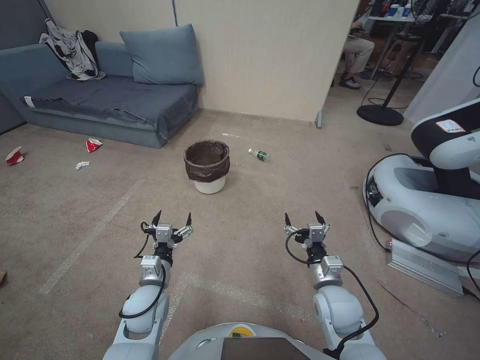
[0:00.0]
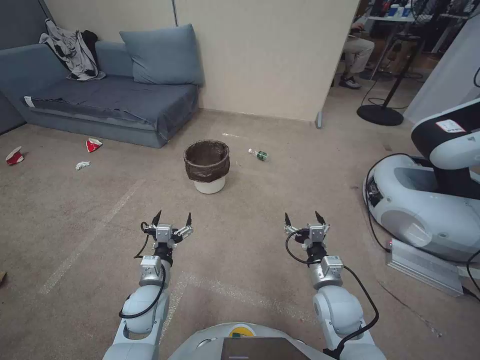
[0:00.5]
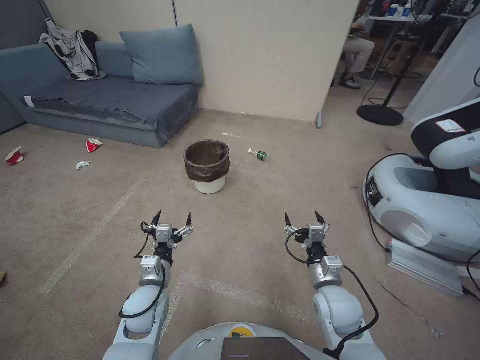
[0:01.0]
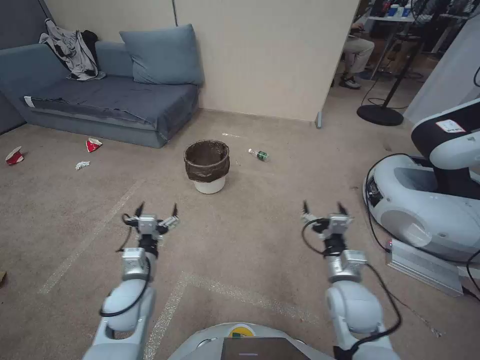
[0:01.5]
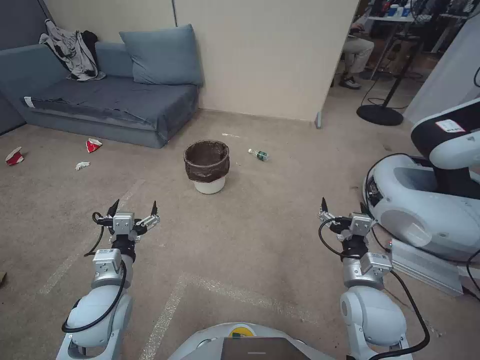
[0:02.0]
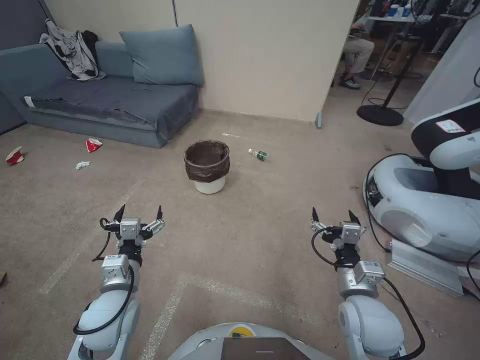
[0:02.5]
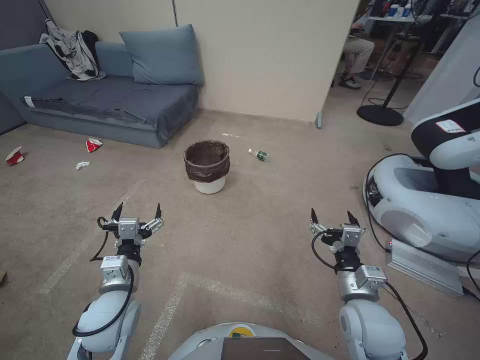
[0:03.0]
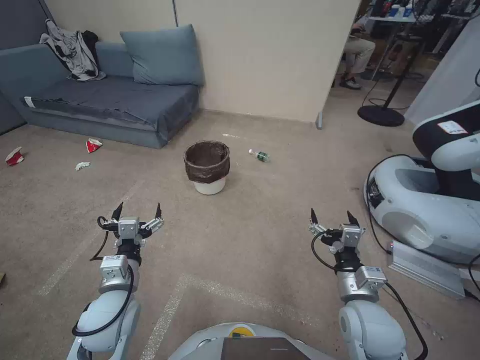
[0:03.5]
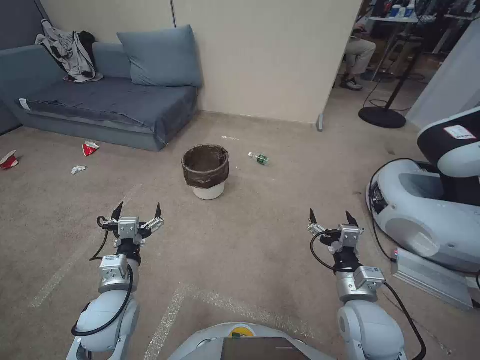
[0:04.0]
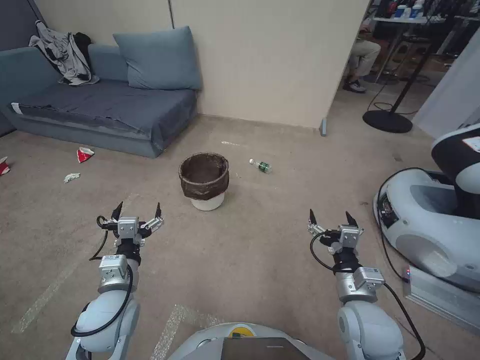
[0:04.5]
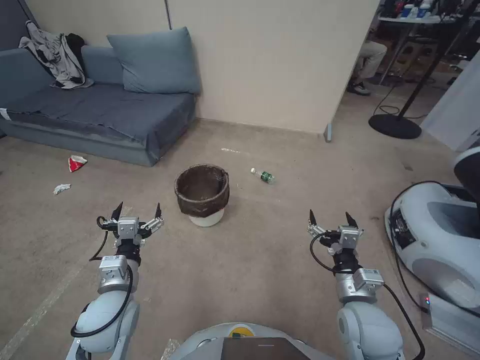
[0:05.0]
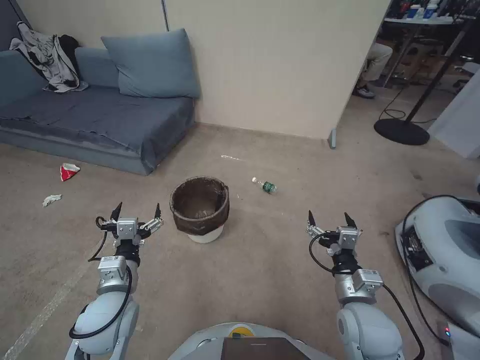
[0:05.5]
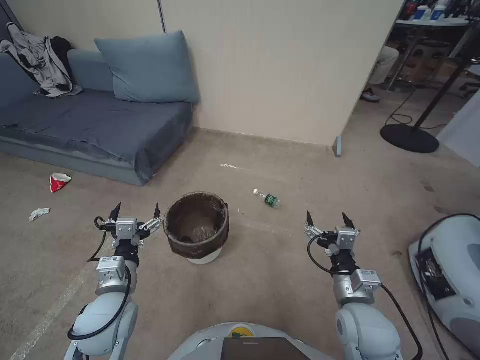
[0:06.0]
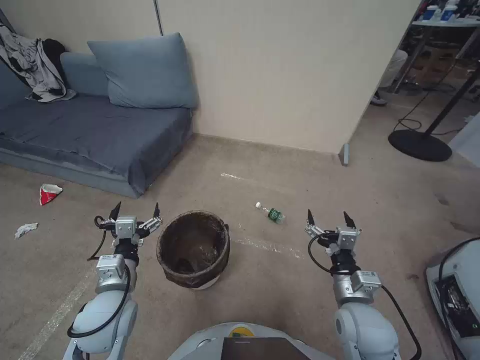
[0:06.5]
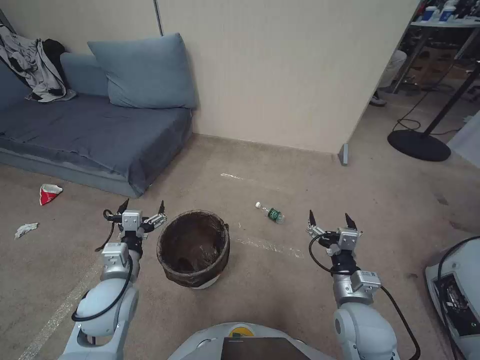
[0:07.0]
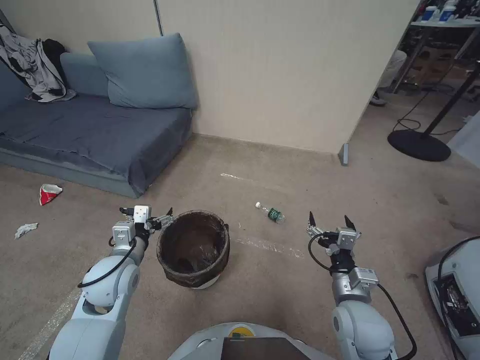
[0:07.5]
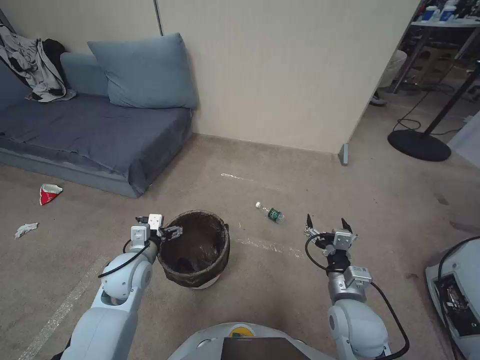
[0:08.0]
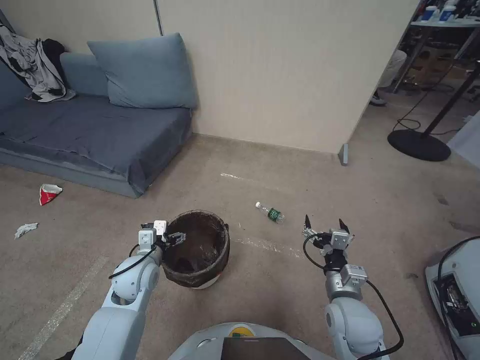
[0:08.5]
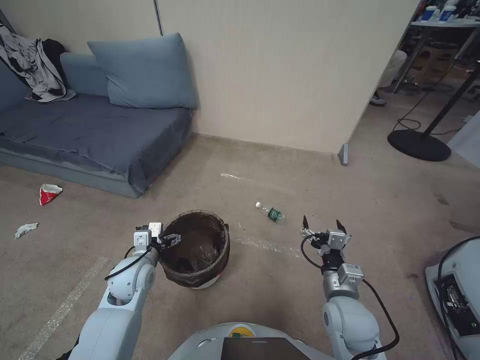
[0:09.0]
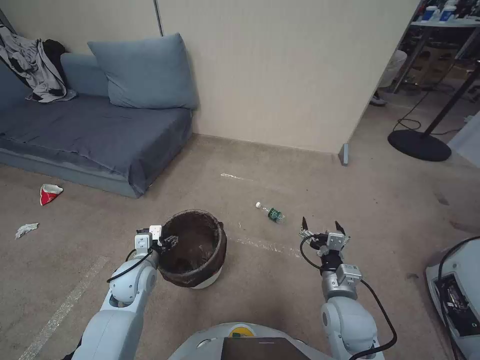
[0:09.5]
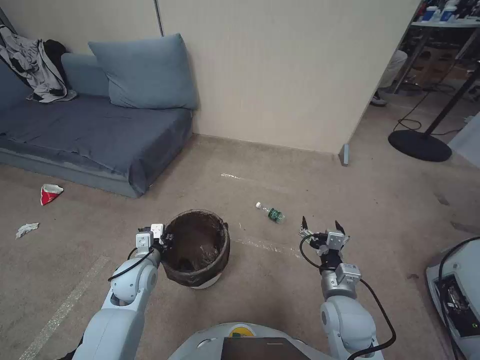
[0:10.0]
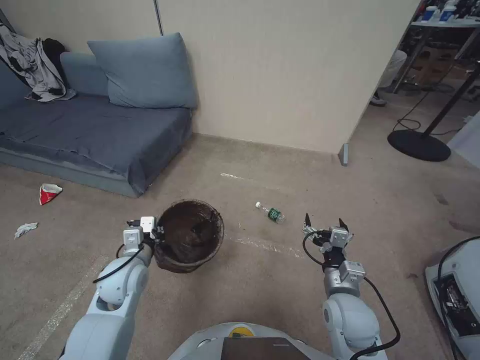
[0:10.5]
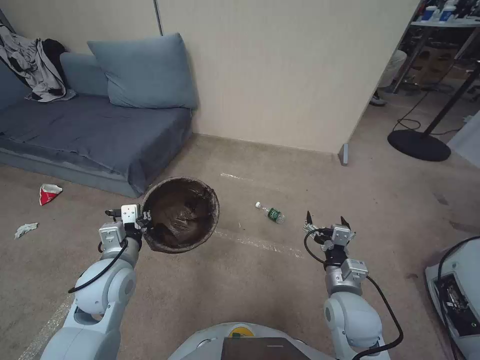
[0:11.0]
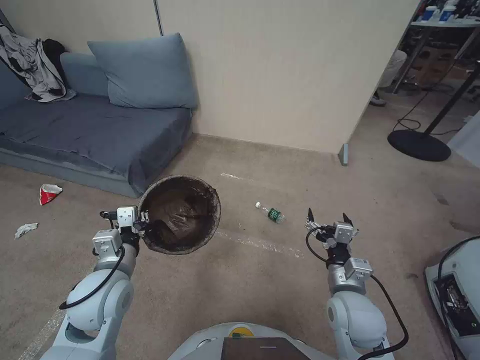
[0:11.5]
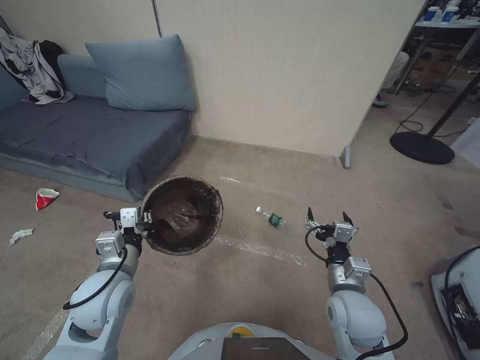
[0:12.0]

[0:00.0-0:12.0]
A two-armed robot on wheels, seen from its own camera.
Task of the whole recording: Pick up the trash bin, then pick up the garbage from the floor and place it into the trash bin.
0:02.0 to 0:04.0: The grippers make only small movements.
0:06.0 to 0:08.0: The left gripper is displaced forward by about 10 cm.
0:08.0 to 0:10.0: The left gripper closes.
0:10.0 to 0:12.0: The left gripper goes some 10 cm upward and backward.

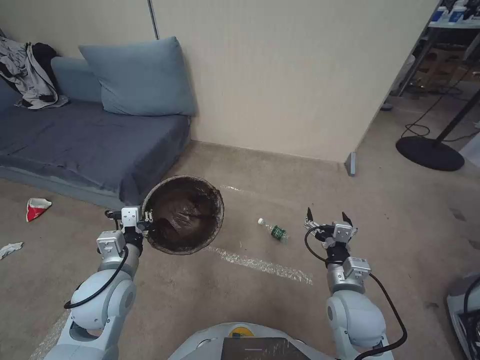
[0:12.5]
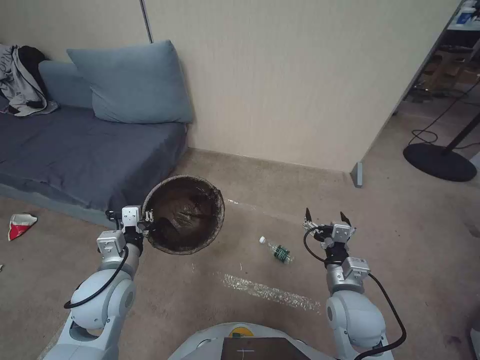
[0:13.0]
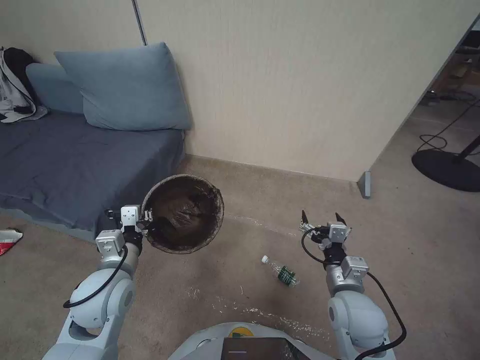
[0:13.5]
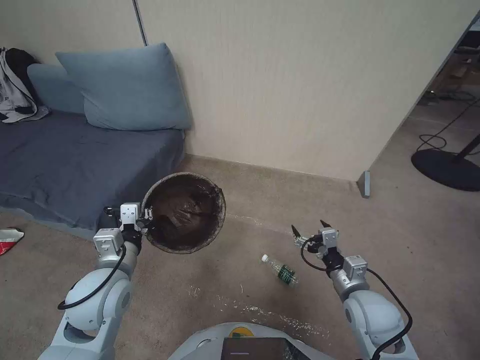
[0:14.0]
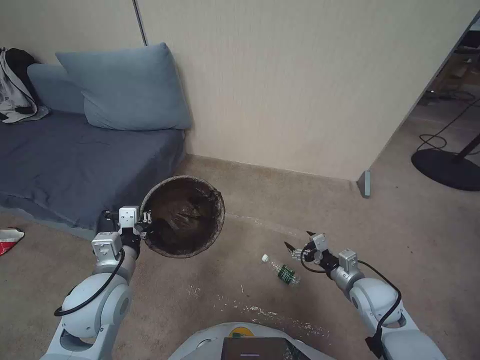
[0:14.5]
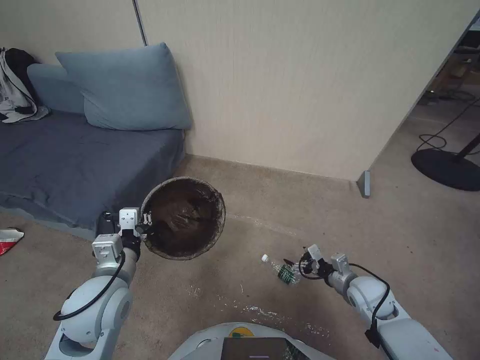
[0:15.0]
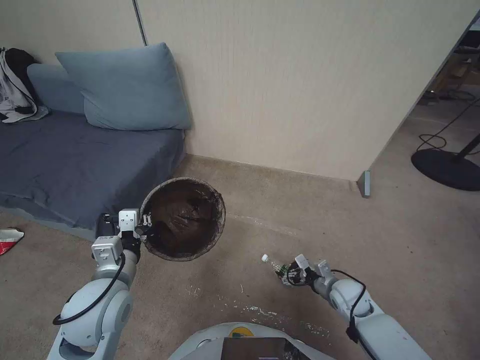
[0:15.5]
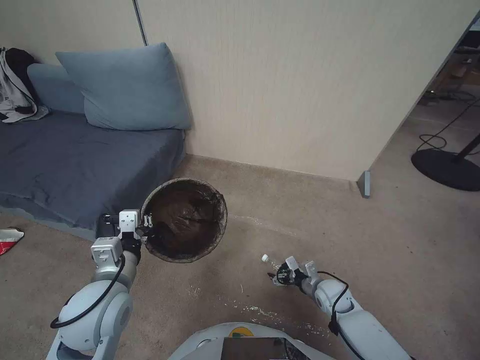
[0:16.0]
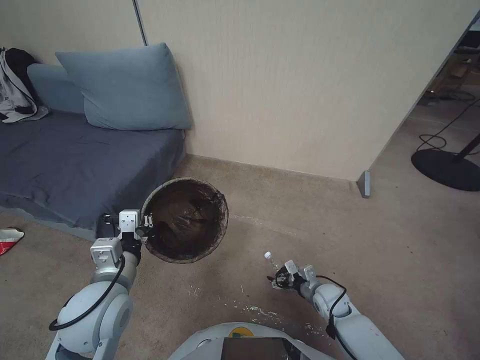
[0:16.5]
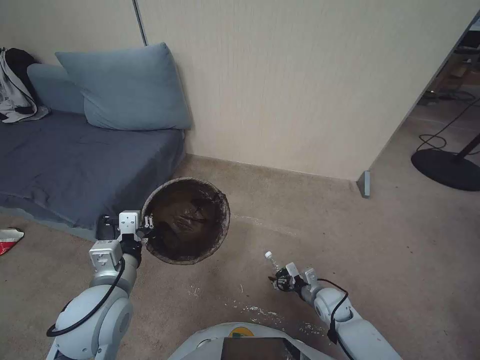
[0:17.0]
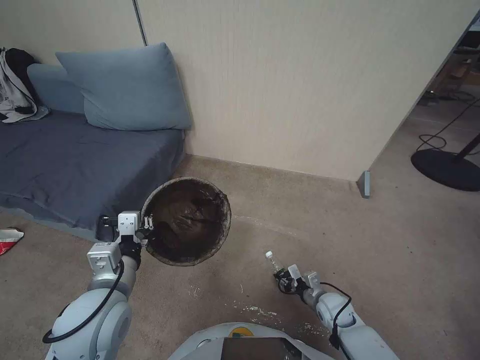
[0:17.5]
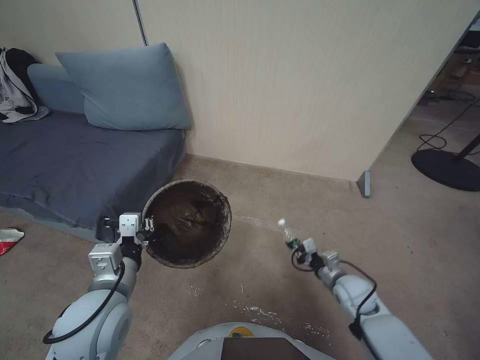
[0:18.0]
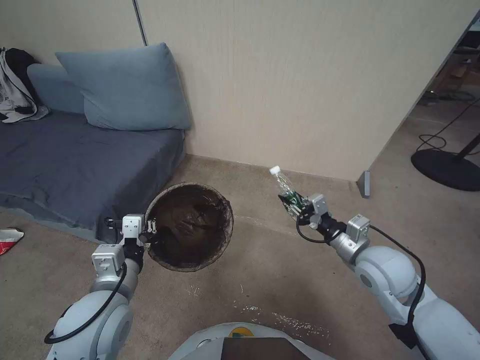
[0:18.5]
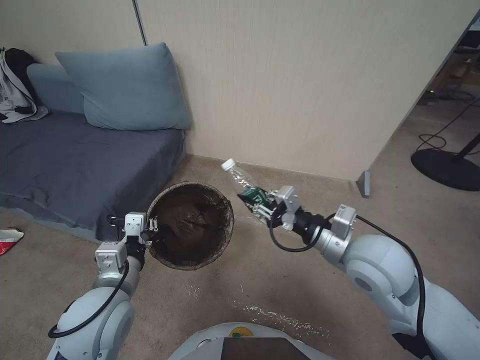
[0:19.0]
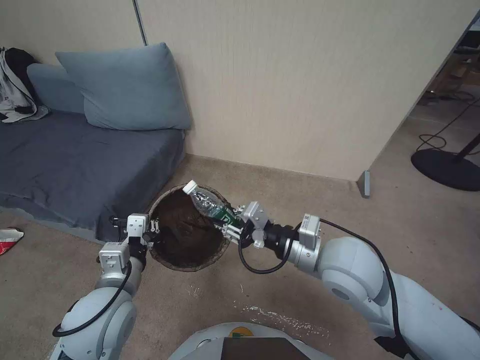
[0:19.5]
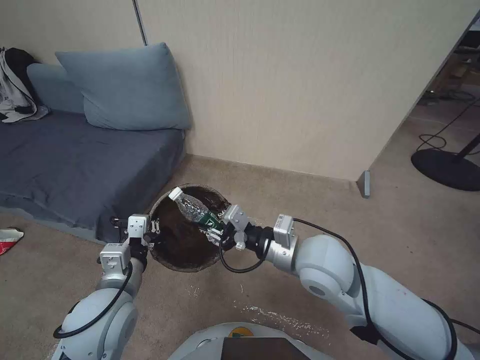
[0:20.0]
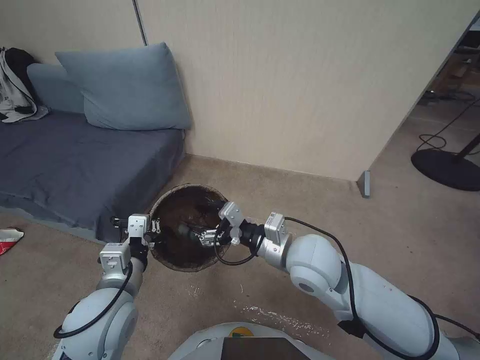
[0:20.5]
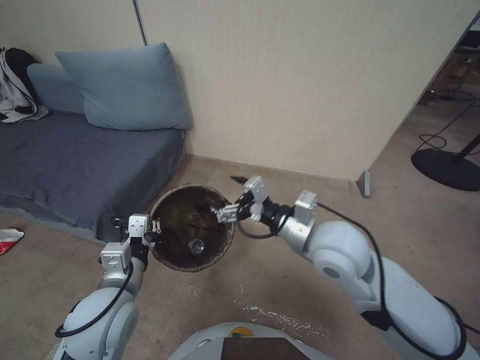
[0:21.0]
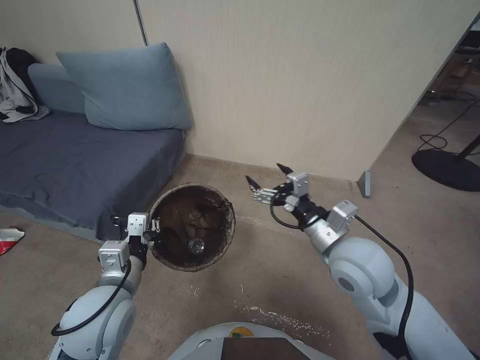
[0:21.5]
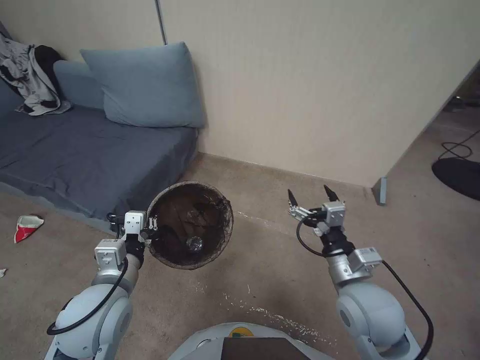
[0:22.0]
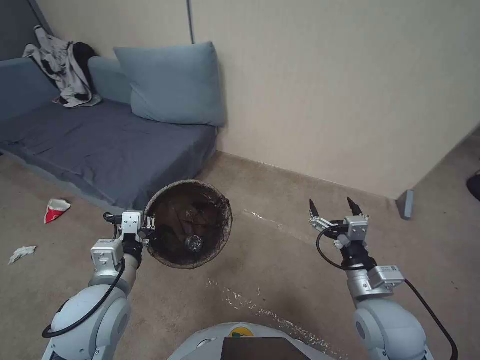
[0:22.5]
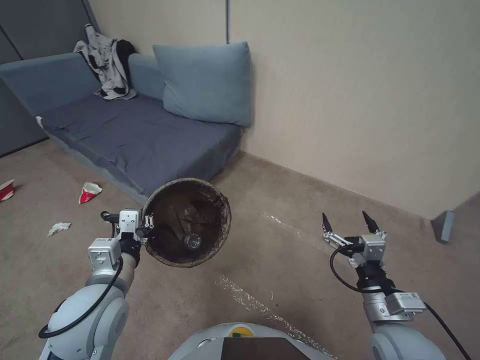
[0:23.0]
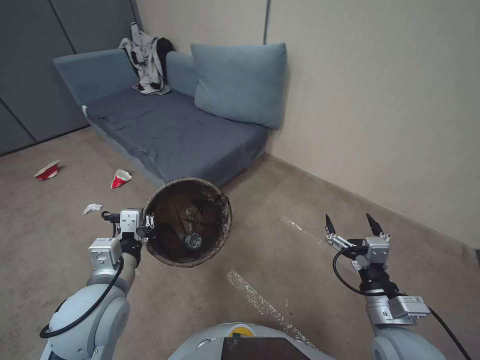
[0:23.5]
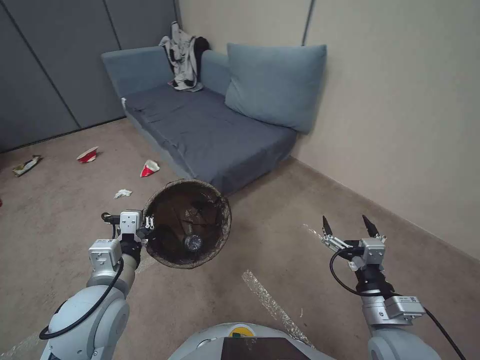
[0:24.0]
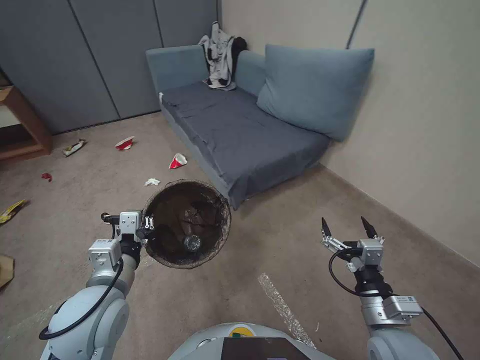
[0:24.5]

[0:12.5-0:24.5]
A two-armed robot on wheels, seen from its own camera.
Task of the whole recording: Pick up the trash bin, then pick up the garbage from the floor and place it into the trash bin.
0:12.5 to 0:14.5: The right gripper travels to the right by roughly 10 cm.
0:14.5 to 0:16.5: The right gripper is displaced downward by approximately 15 cm.
0:16.5 to 0:18.5: The right gripper travels upward by about 25 cm, and closes up.
0:18.5 to 0:20.5: The right gripper is displaced to the left and upward by some 20 cm, and opens its fingers.
0:20.5 to 0:22.5: The right gripper heads to the right, backward and downward, covering approximately 20 cm.
0:22.5 to 0:24.5: The right gripper changes place by about 5 cm.

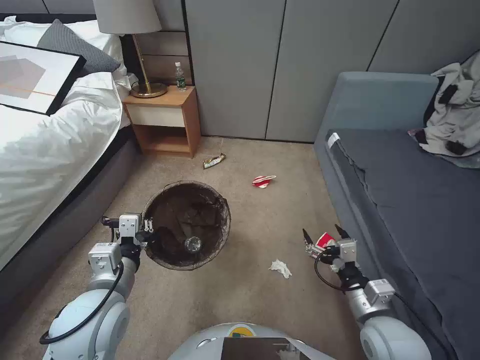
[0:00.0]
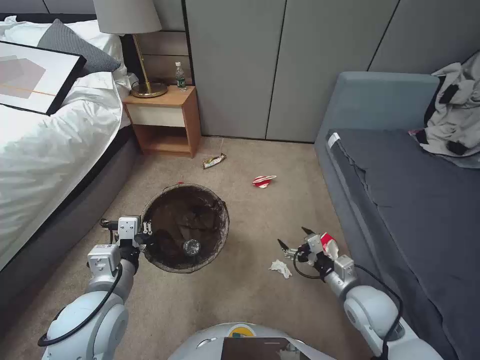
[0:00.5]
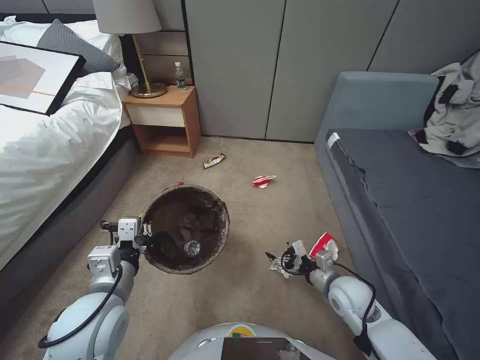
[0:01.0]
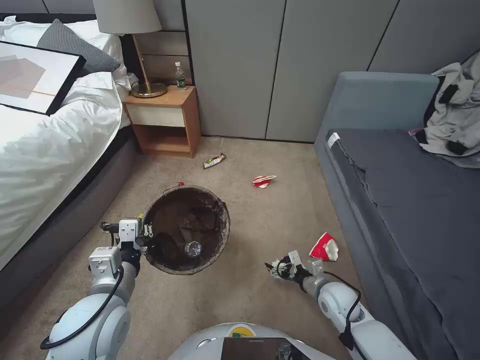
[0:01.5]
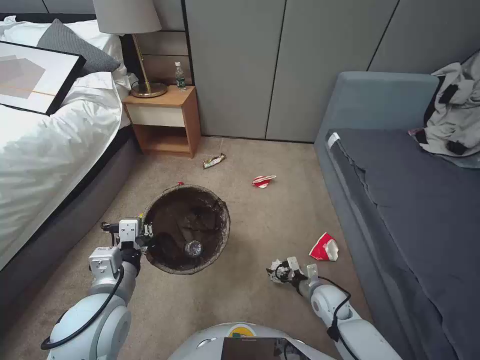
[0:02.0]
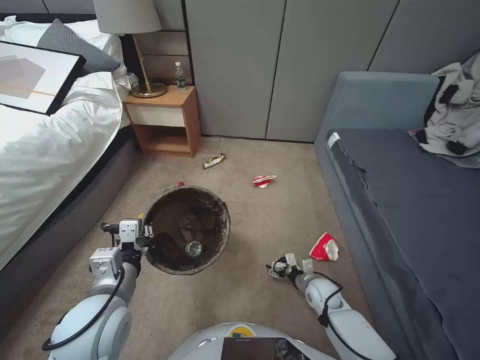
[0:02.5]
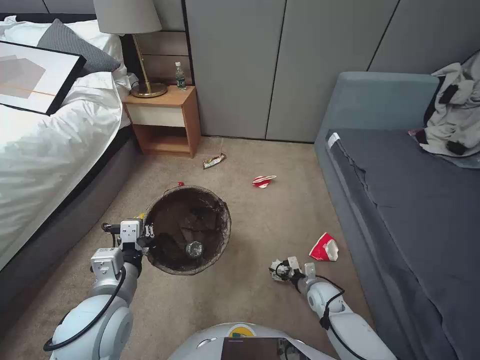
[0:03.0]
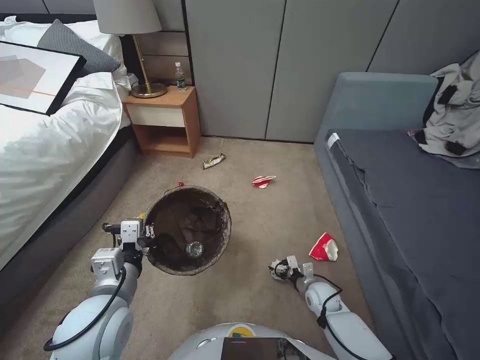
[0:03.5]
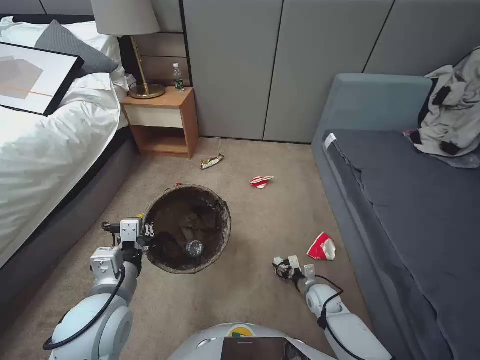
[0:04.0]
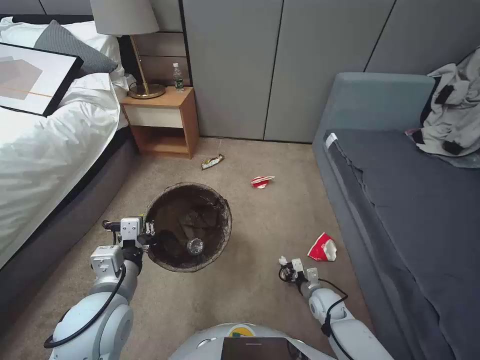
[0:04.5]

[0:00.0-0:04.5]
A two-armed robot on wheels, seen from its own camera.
Task of the whole recording: Pick up the trash bin, then pick up the garbage from the floor and place it into the trash bin.
0:00.0 to 0:02.0: The right gripper is displaced downward and forward by some 20 cm.
0:02.0 to 0:04.5: The right gripper goes roughly 5 cm downward, and closes its fingers.
